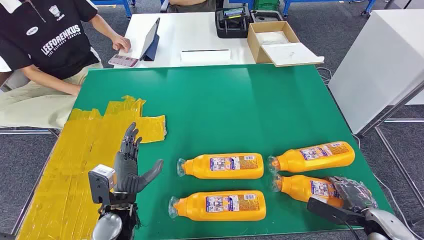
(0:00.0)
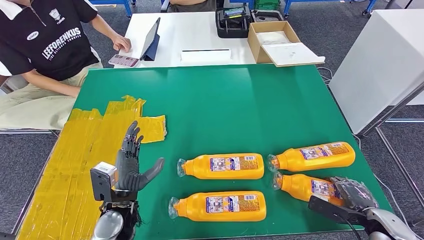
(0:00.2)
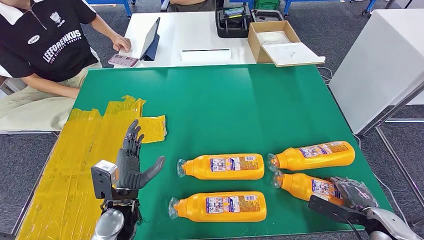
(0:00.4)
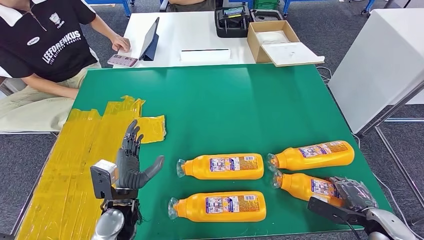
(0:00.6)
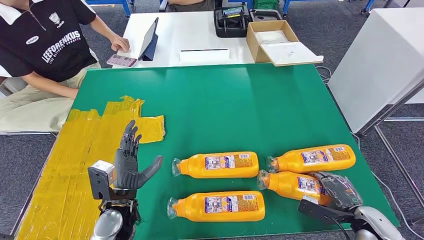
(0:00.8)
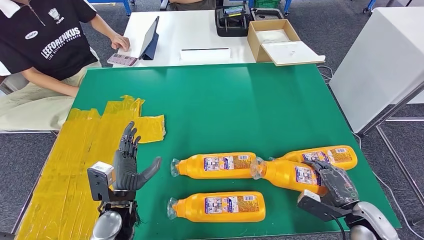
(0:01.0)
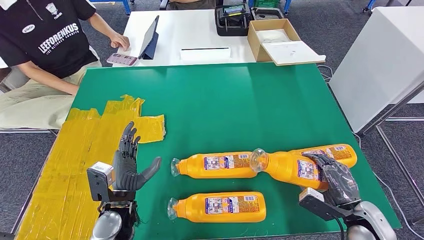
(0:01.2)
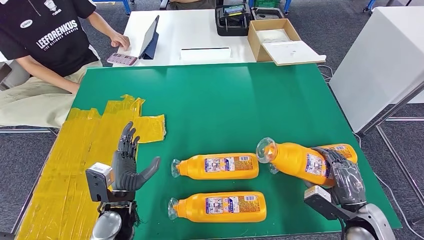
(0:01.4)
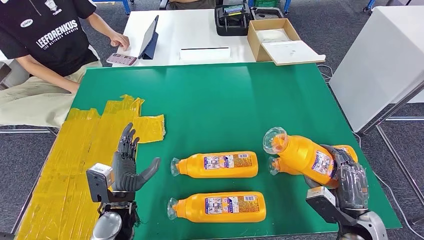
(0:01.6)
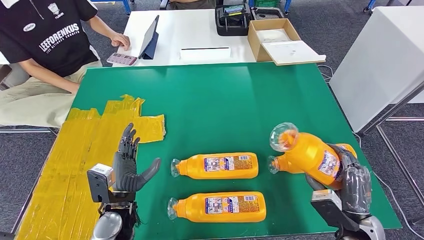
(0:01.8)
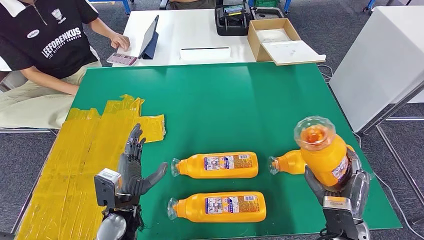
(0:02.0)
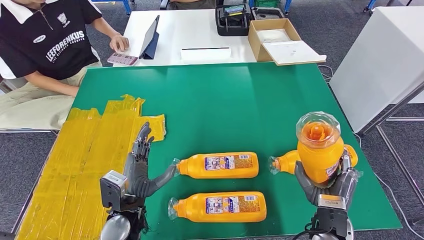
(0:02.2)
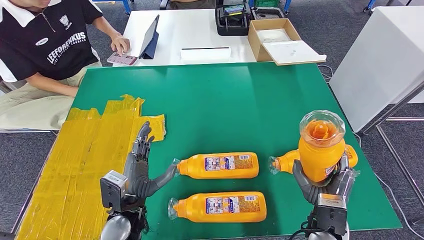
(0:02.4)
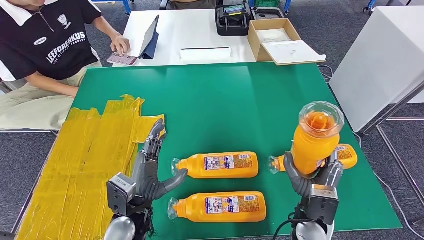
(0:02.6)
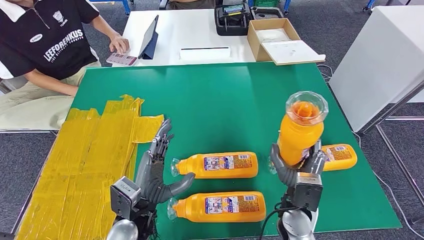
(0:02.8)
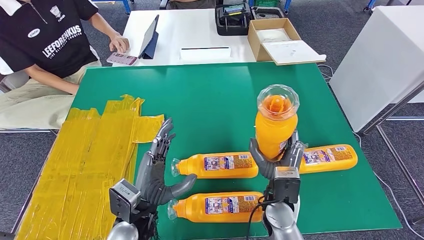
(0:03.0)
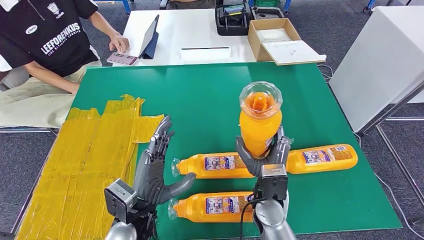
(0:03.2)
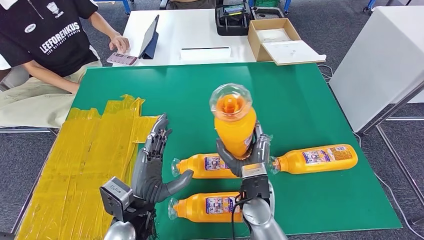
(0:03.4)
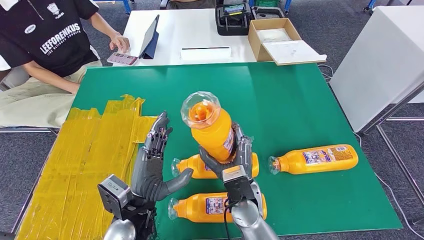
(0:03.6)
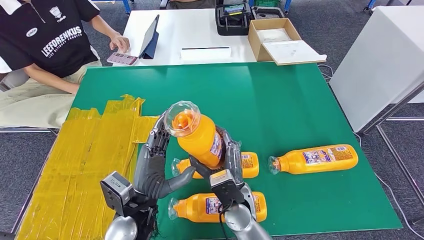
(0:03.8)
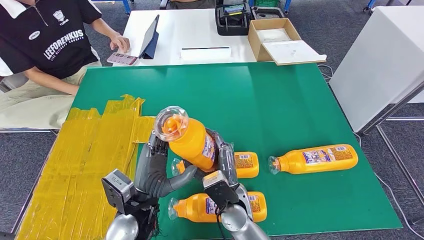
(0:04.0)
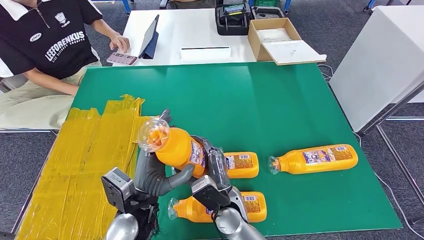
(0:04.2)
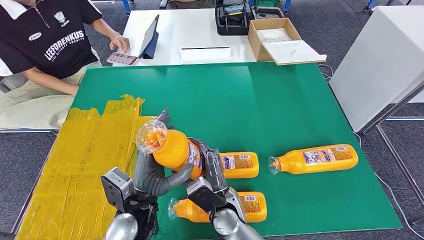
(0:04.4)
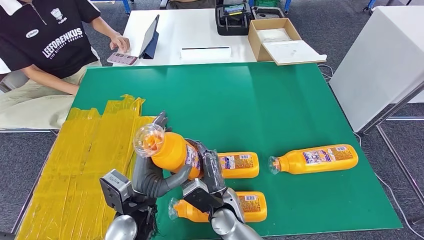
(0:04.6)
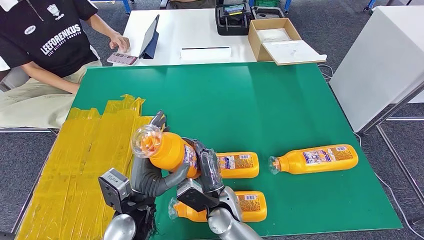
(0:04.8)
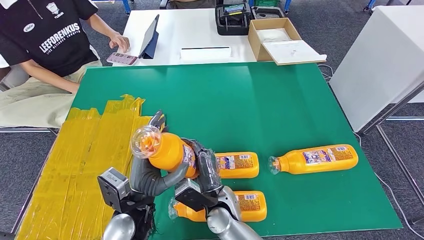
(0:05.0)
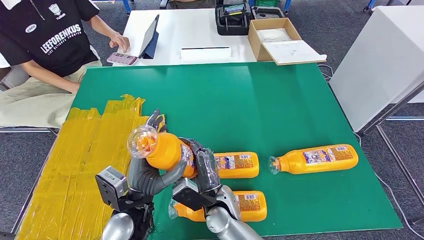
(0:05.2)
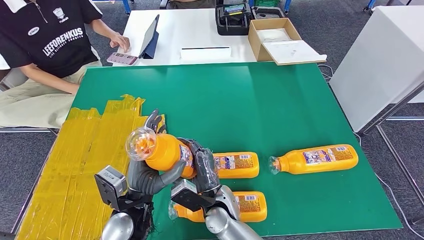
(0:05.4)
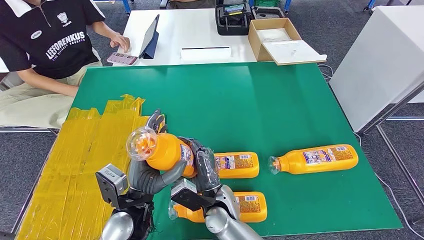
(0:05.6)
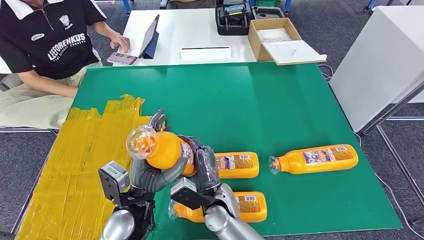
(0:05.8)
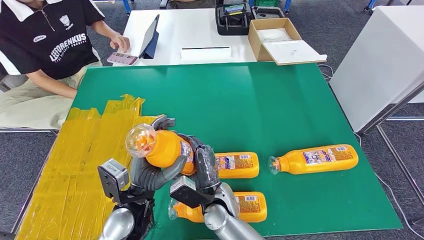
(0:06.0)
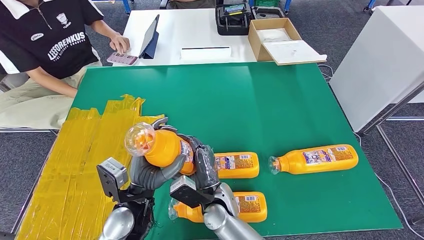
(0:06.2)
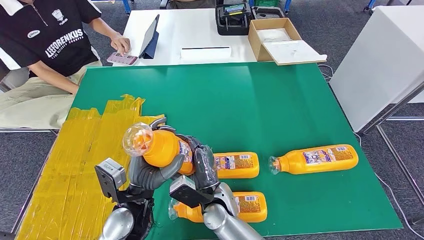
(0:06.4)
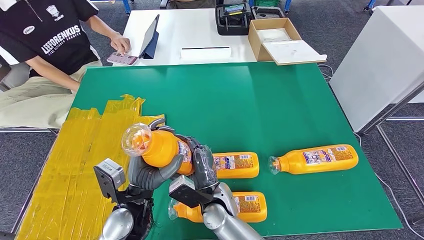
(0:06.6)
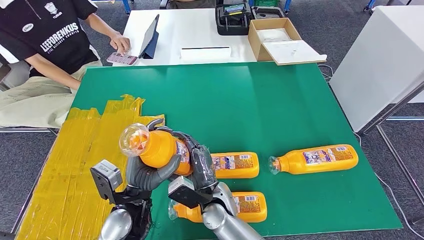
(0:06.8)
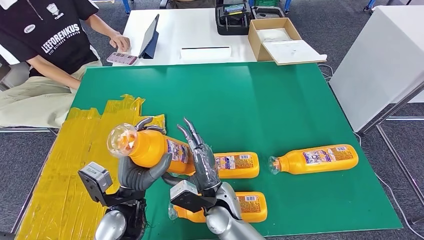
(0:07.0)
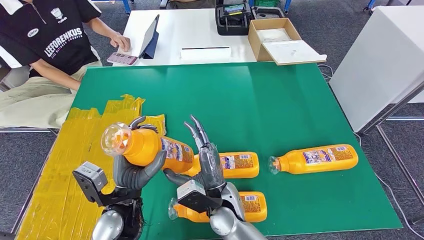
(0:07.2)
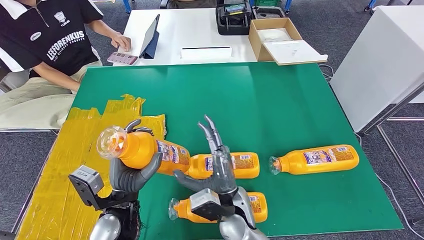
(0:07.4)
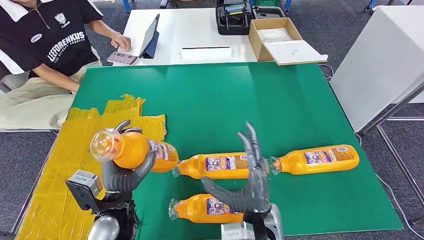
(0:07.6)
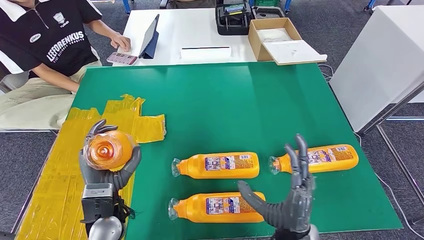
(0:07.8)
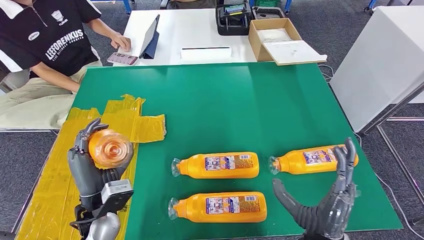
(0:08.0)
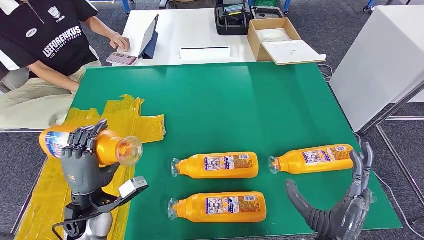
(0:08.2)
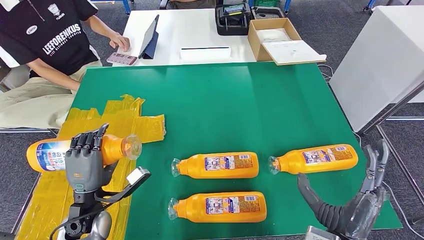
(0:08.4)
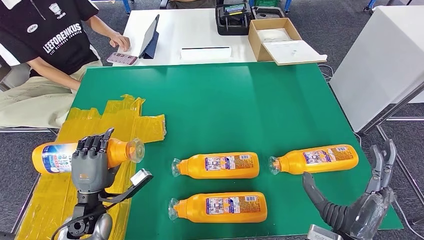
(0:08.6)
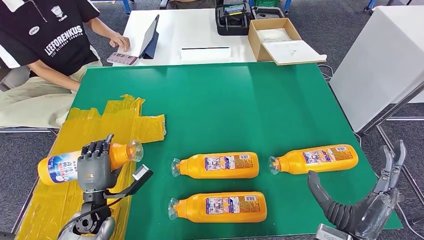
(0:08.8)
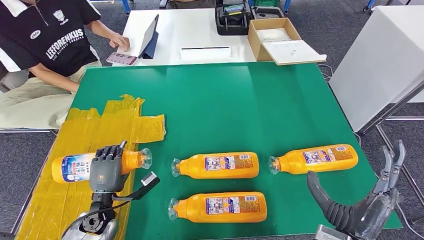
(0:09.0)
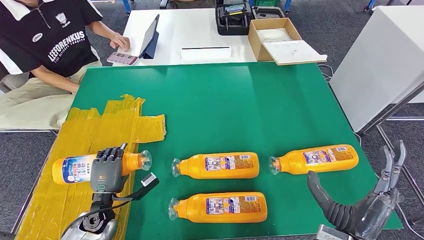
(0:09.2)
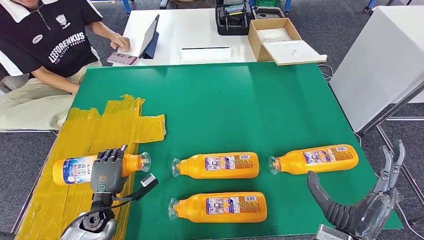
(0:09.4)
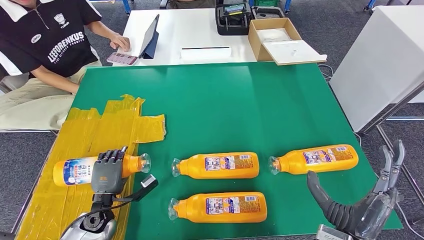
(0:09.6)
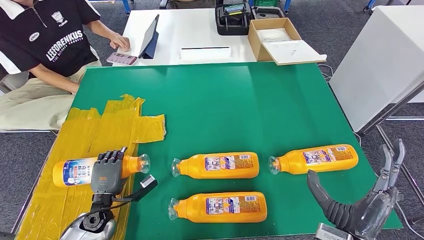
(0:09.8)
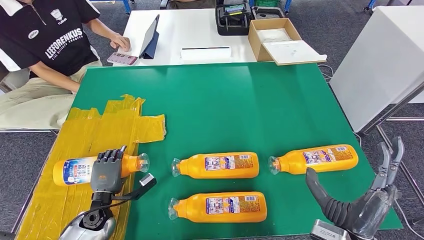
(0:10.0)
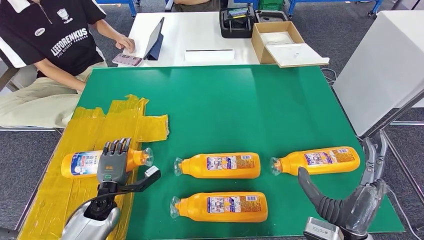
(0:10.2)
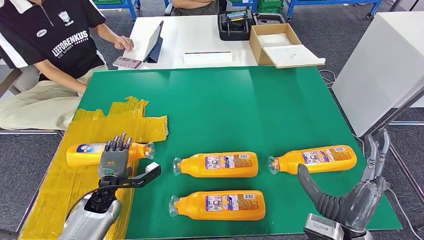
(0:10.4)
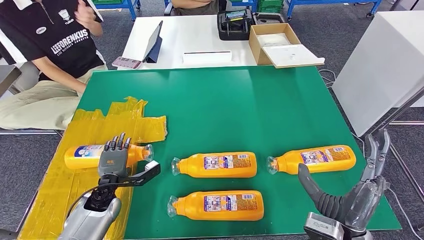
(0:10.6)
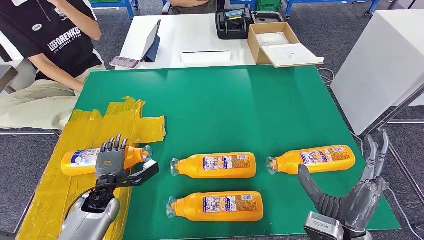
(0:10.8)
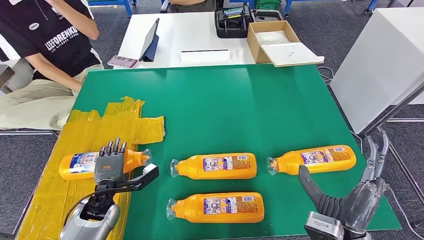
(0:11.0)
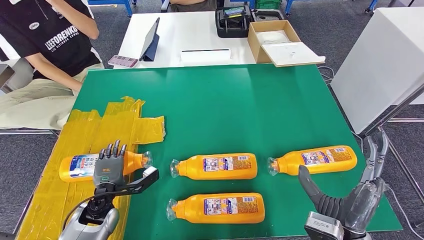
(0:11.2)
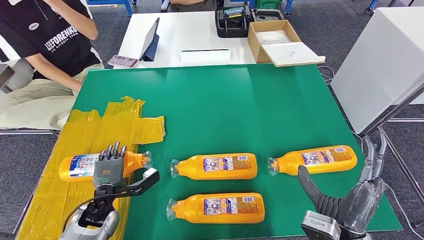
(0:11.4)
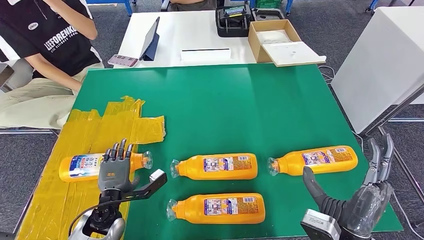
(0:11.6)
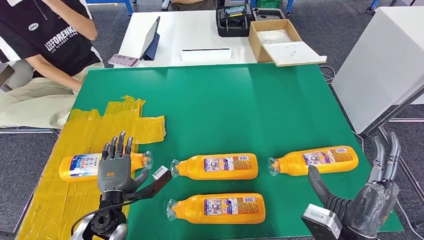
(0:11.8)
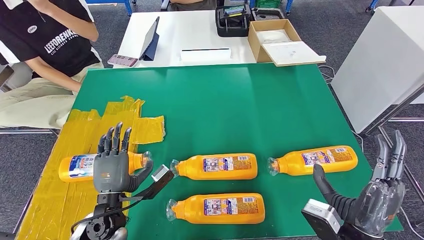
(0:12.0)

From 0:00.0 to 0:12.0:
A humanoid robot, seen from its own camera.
Step, from 0:00.0 to 0:04.0: Take the bottle from the table.
Step, from 0:04.4 to 0:10.4: Flip the bottle to face forward.
From 0:03.0 to 0:04.4: The right hand is displaced to the left by roughly 10 cm.
From 0:04.4 to 0:06.0: The hands make only small movements.
From 0:06.0 to 0:07.6: The right hand shifts some 10 cm to the right, upward and backward.
From 0:07.6 to 0:09.0: The left hand shifts roughly 15 cm downward and to the left; the right hand moves to the right, about 15 cm.

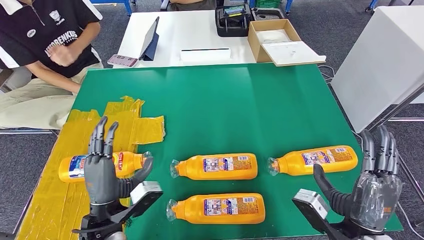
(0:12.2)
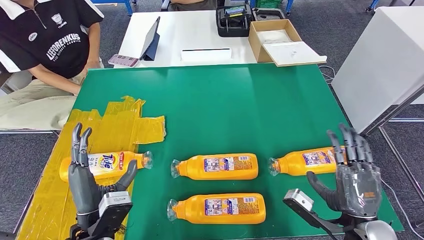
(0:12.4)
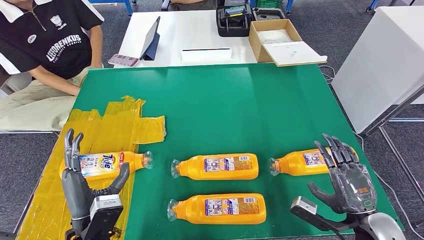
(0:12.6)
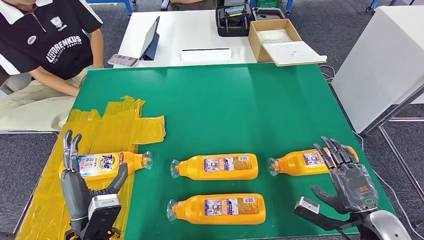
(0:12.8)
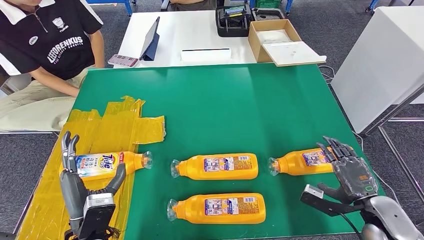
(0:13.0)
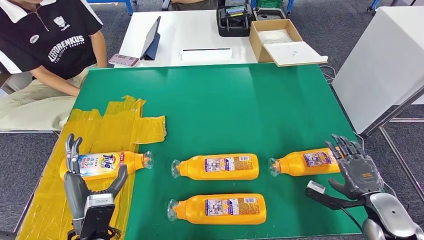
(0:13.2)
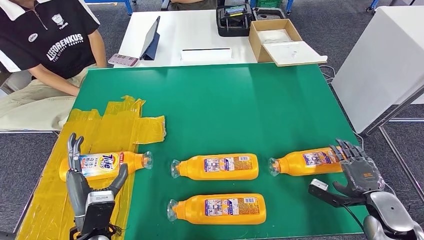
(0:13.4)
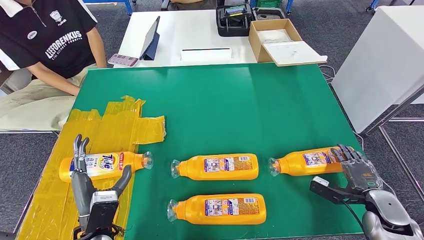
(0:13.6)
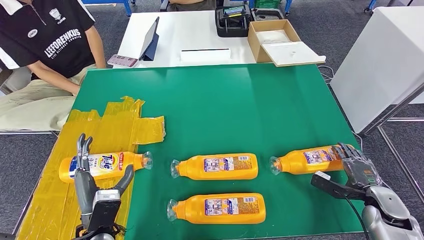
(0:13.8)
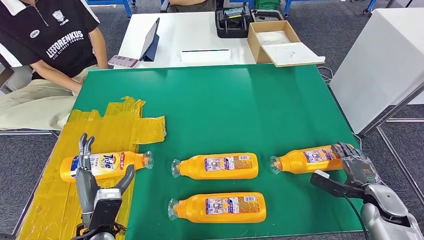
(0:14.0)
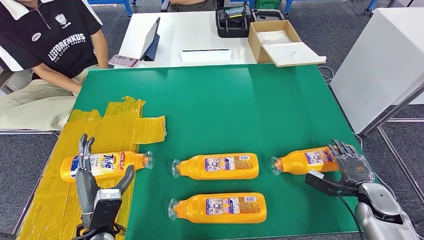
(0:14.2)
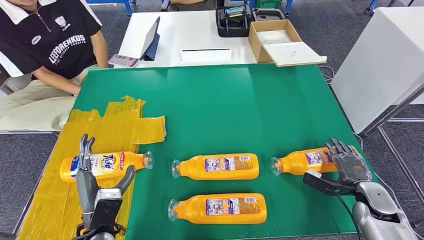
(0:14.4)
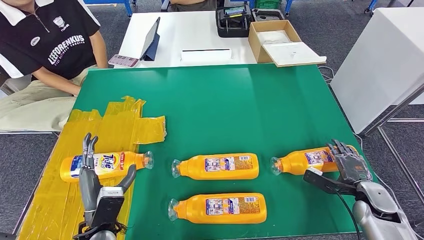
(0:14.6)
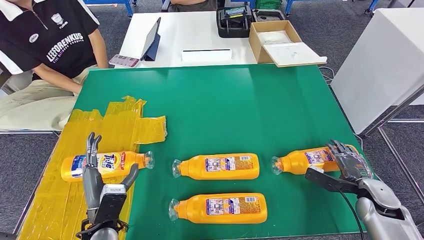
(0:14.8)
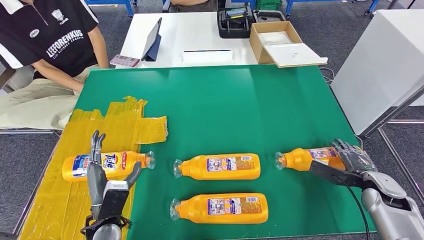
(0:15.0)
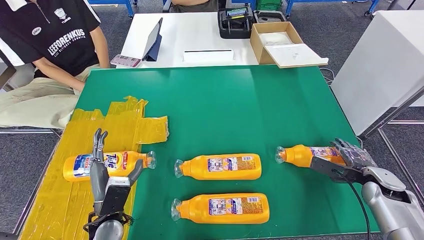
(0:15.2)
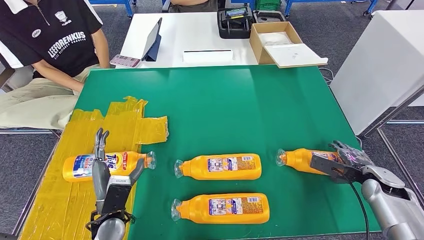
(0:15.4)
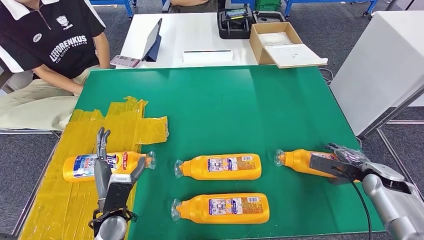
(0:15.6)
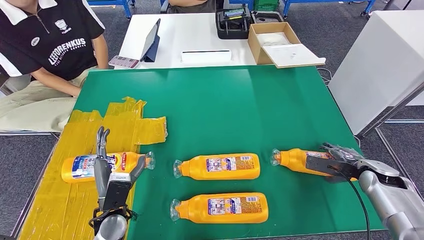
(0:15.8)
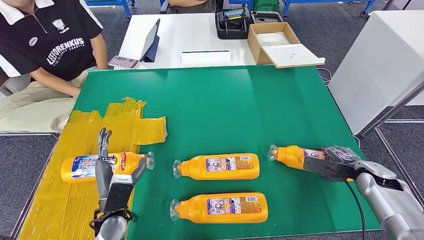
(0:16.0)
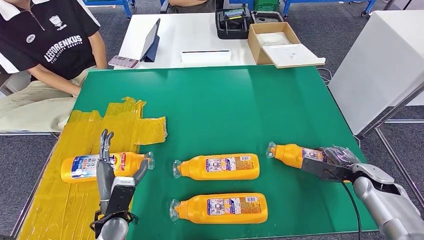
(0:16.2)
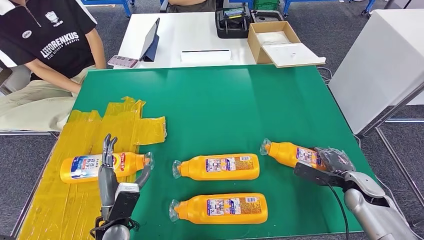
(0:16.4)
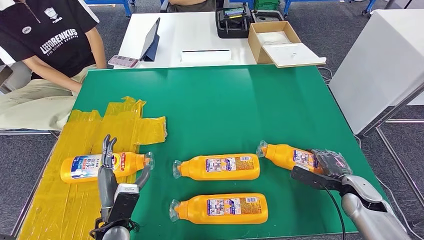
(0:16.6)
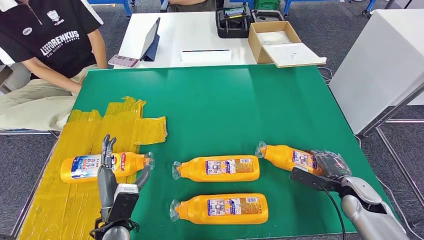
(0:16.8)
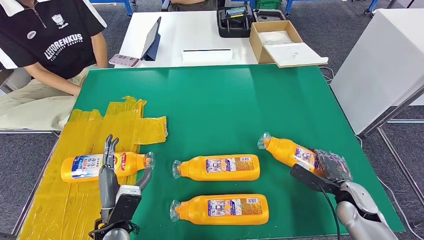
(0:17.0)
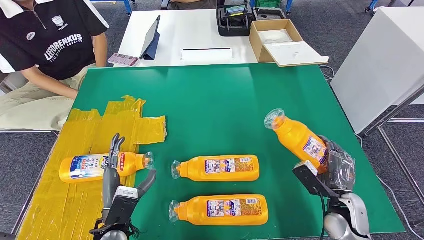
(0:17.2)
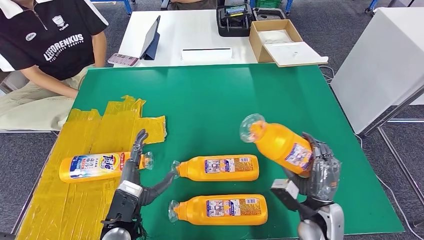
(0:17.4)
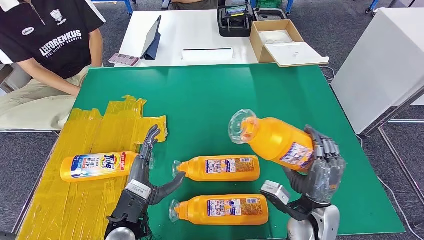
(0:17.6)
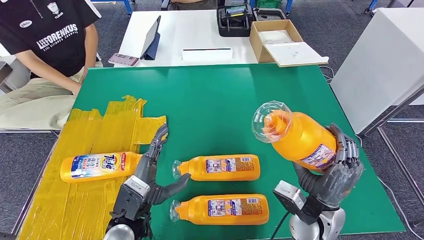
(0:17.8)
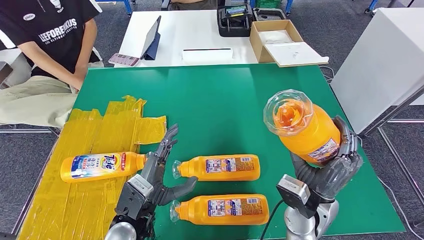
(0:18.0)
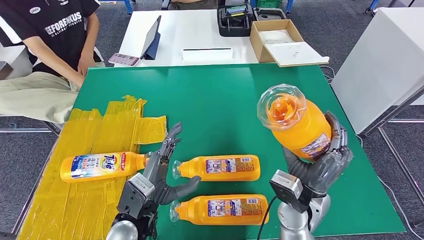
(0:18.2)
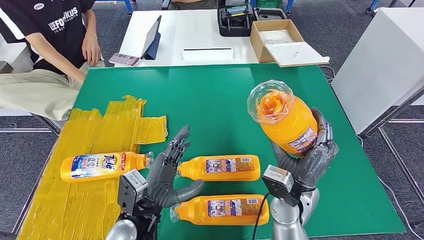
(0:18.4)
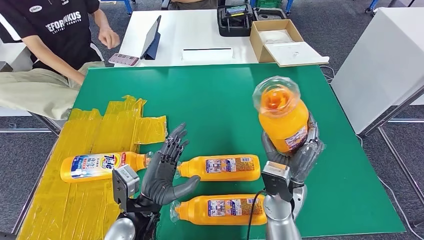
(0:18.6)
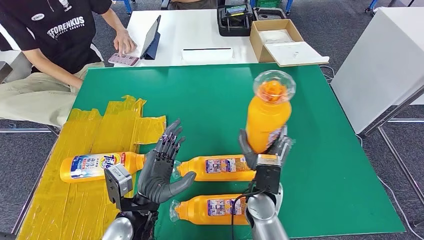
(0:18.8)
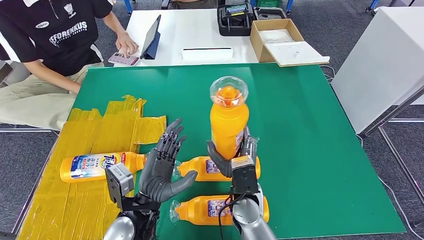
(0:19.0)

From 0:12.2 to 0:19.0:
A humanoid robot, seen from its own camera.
From 0:12.2 to 0:13.6: The right hand moves to the right, downward and forward, roughly 25 cm. Meanwhile the left hand shifts by roughly 5 cm.
From 0:15.0 to 0:16.2: The hands make only small movements.
